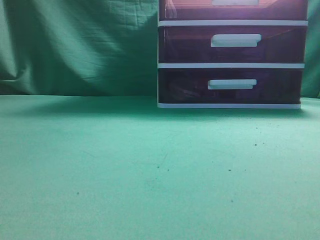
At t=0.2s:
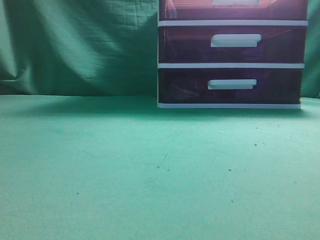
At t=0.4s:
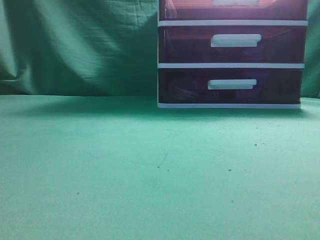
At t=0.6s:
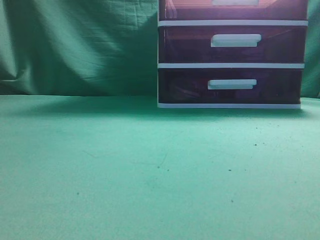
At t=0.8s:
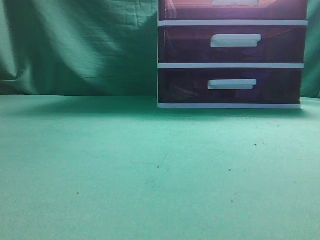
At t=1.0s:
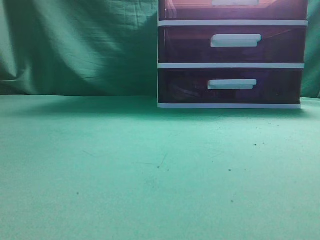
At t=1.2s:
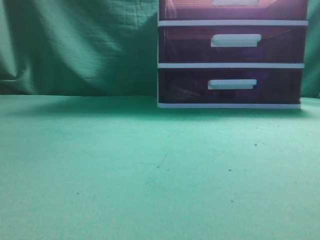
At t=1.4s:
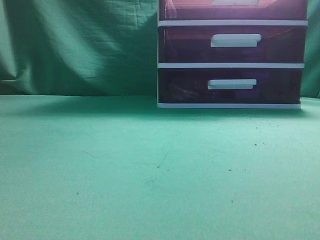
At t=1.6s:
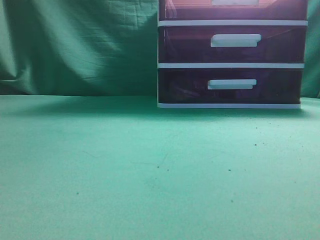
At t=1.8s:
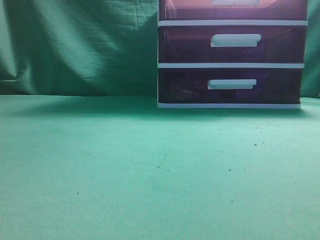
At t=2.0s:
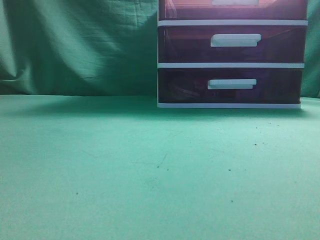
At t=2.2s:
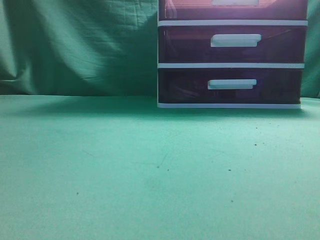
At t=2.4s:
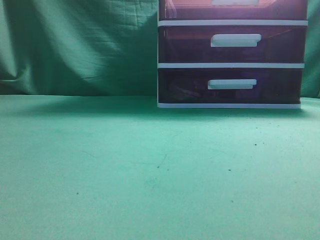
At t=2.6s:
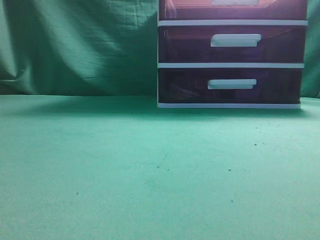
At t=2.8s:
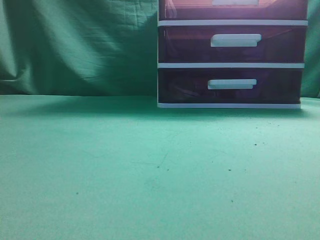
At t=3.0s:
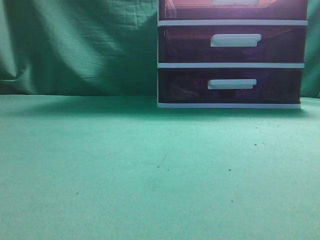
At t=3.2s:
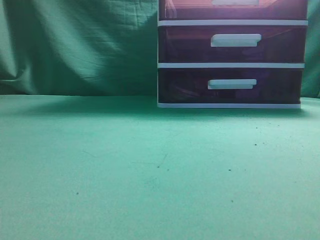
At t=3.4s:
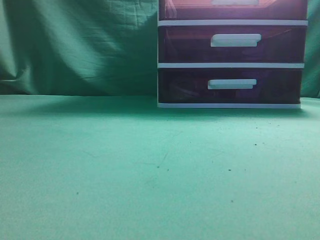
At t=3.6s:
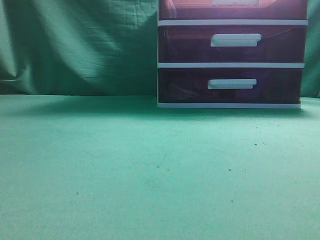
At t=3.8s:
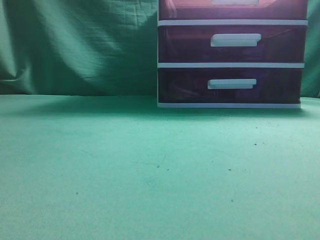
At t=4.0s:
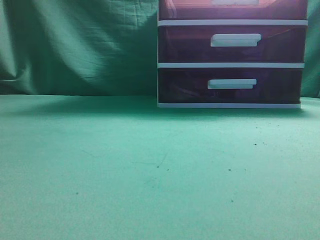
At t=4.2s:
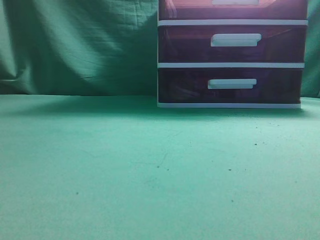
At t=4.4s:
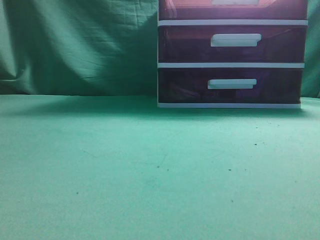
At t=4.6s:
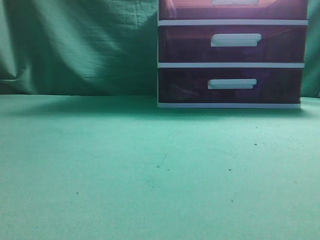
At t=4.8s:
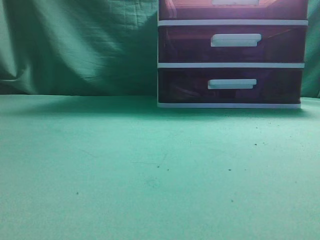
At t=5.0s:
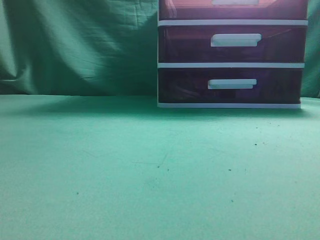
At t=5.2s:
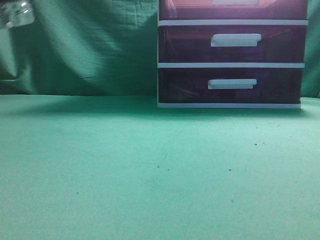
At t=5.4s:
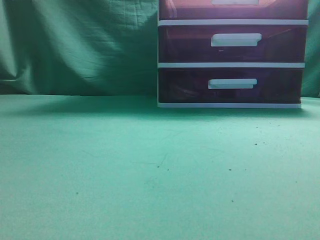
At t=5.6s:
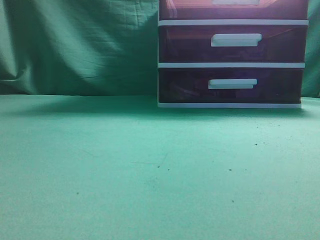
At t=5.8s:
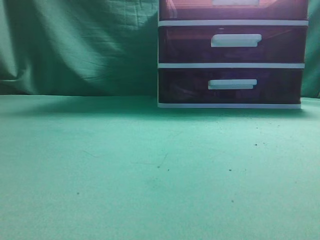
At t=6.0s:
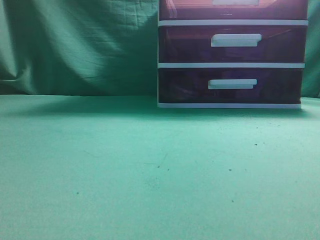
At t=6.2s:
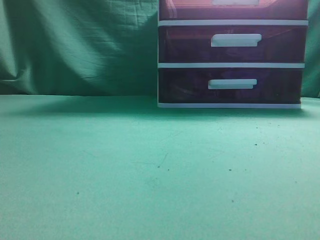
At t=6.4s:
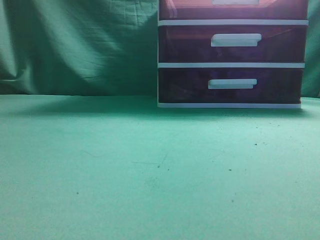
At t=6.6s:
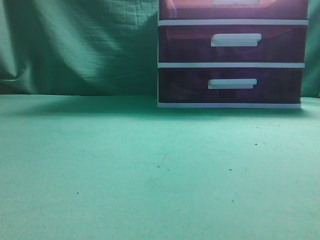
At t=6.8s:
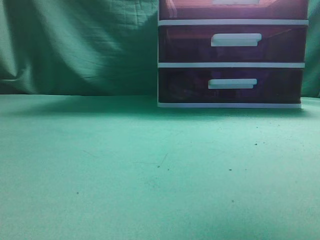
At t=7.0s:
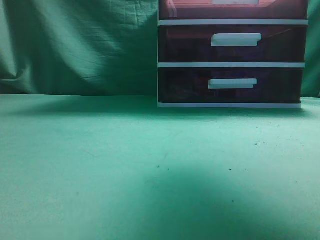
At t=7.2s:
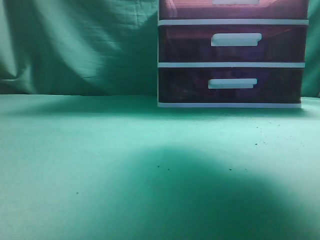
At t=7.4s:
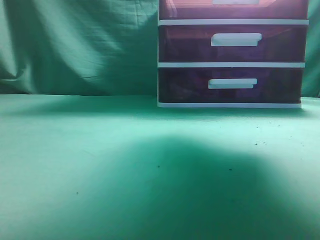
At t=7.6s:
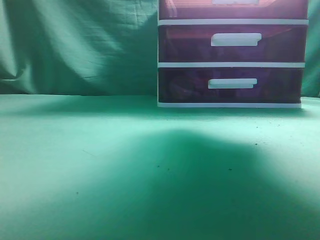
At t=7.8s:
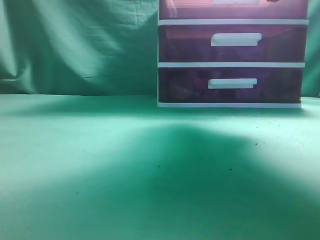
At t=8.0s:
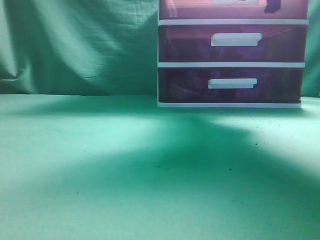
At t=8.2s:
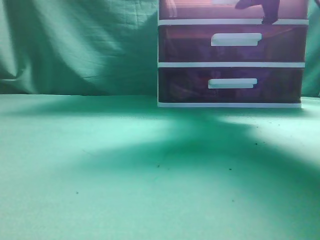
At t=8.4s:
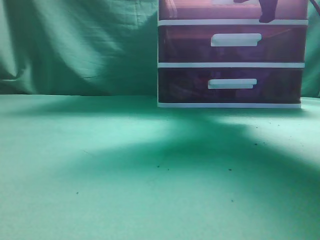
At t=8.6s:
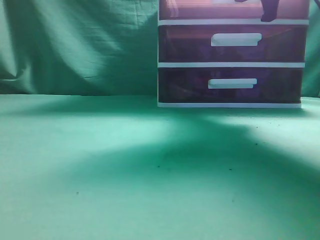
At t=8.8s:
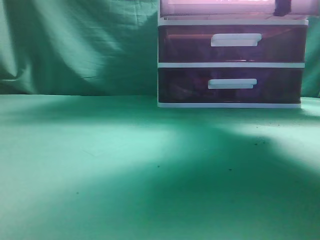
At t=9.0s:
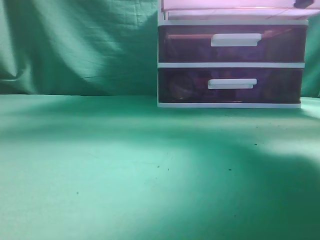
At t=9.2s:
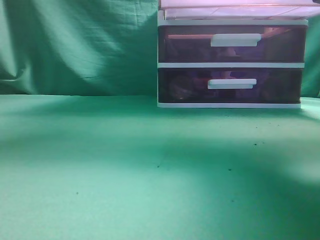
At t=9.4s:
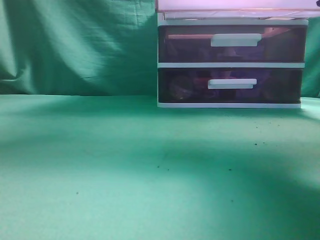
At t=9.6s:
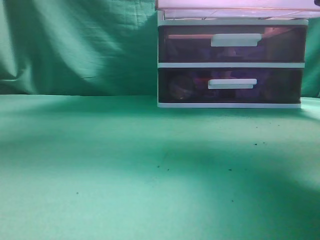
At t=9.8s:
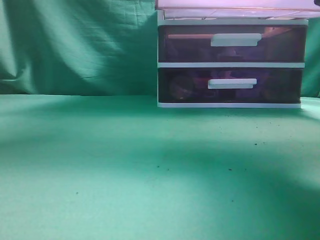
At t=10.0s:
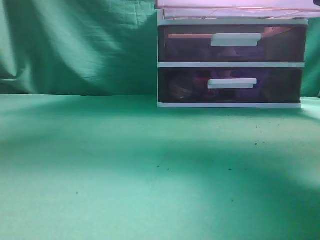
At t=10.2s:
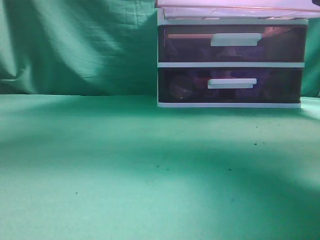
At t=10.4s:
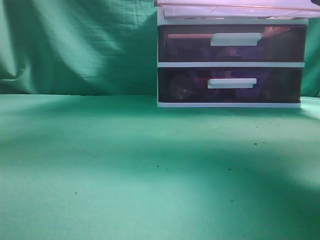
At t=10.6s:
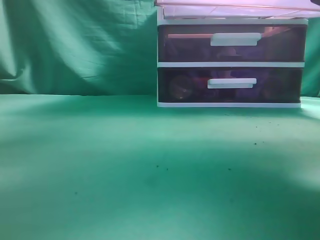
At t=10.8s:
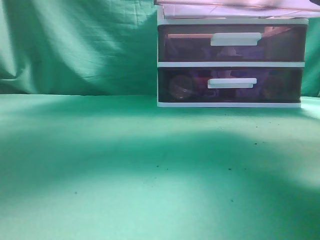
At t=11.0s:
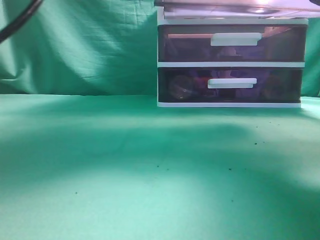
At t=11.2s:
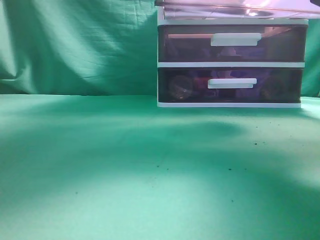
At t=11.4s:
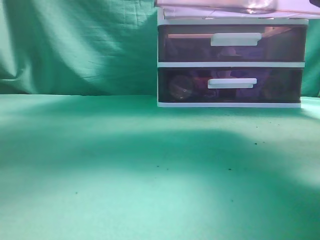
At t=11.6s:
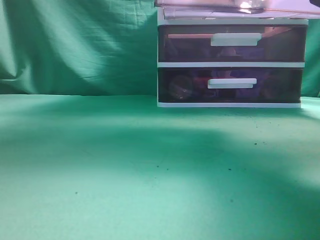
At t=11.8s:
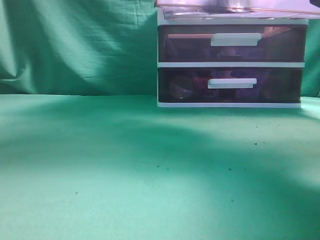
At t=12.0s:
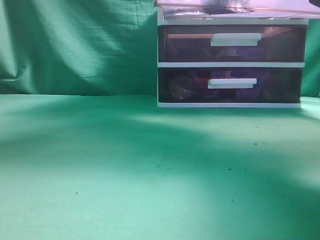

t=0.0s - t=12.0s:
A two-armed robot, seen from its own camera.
Task of the whole recording: place the water bottle into the drawer.
Step, t=0.0s - t=9.8s: Open the drawer.
t=6.0s - t=7.6s: The right gripper goes about 30 cm forward, and opens its fingers.
t=7.6s - t=9.0s: The right gripper closes up.
t=9.0s - t=10.4s: The right gripper moves backward, roughly 5 cm; the left gripper heads to the right, forward and upward, covering some 30 cm.
t=10.4s - t=12.0s: The left gripper goes some 10 cm forward, moves approximately 10 cm downward and comes back, and opens and closes again.

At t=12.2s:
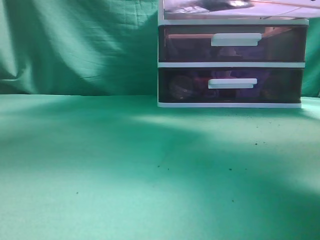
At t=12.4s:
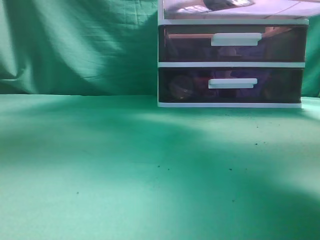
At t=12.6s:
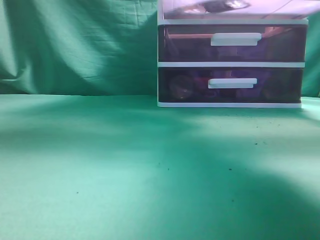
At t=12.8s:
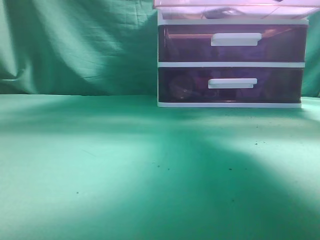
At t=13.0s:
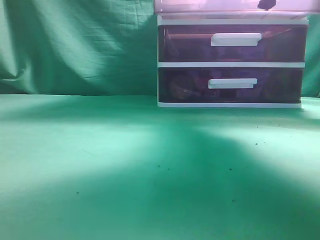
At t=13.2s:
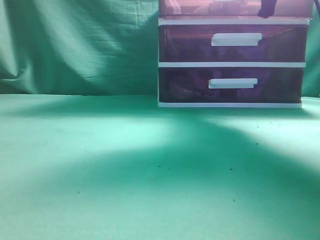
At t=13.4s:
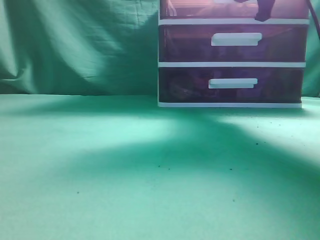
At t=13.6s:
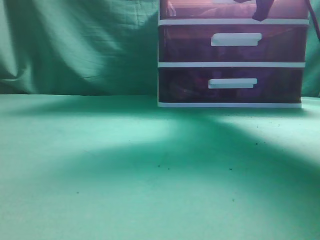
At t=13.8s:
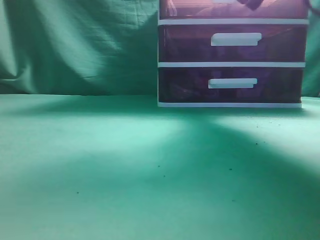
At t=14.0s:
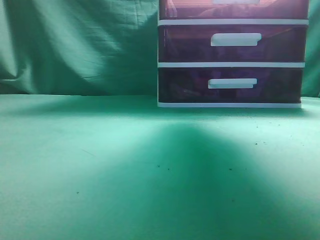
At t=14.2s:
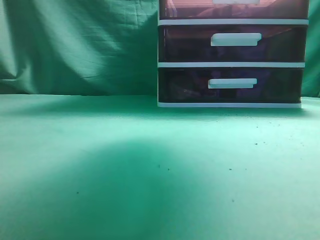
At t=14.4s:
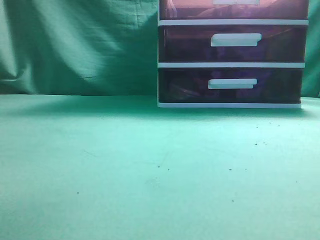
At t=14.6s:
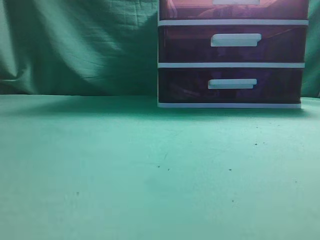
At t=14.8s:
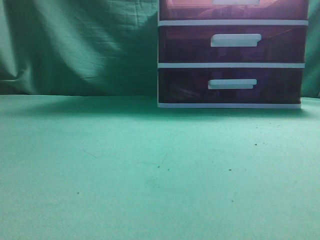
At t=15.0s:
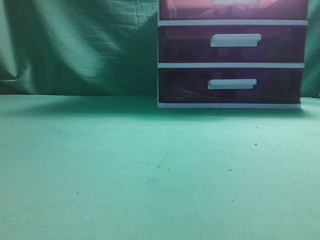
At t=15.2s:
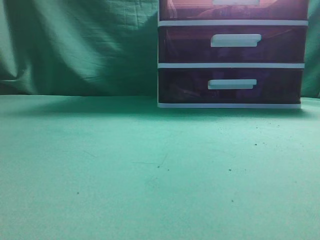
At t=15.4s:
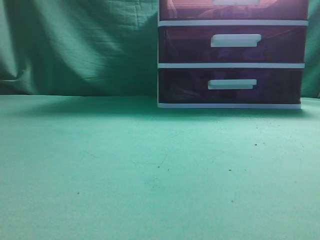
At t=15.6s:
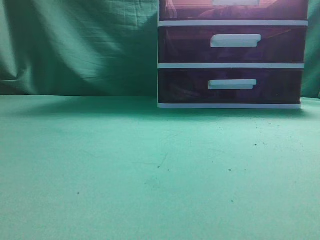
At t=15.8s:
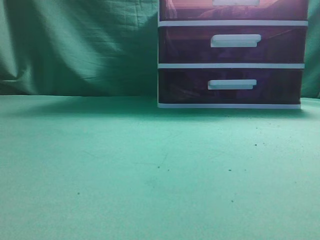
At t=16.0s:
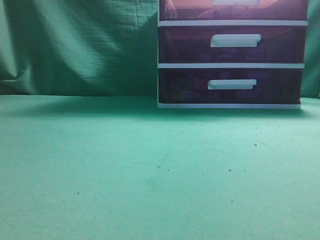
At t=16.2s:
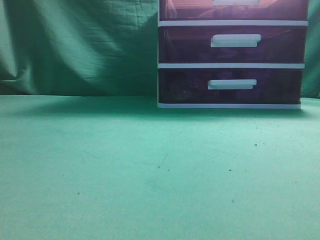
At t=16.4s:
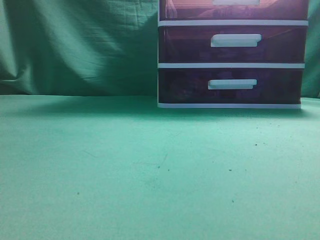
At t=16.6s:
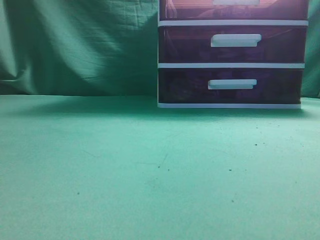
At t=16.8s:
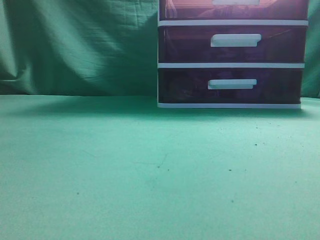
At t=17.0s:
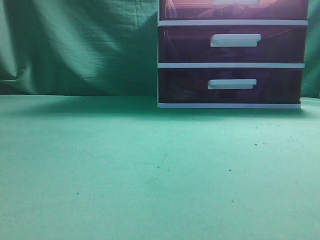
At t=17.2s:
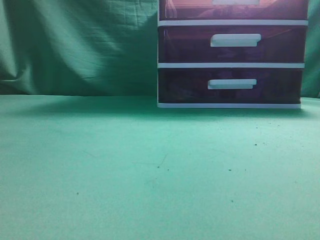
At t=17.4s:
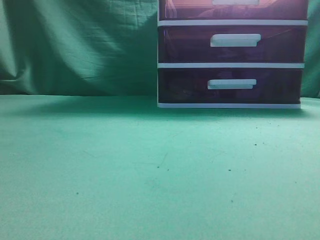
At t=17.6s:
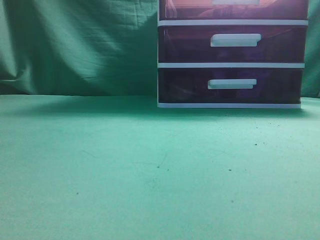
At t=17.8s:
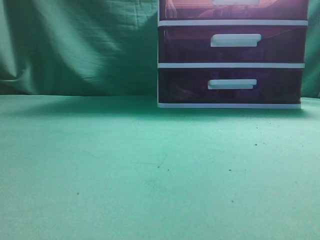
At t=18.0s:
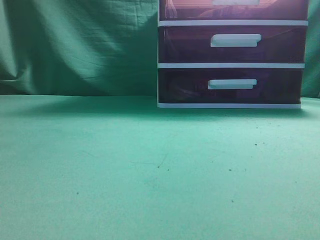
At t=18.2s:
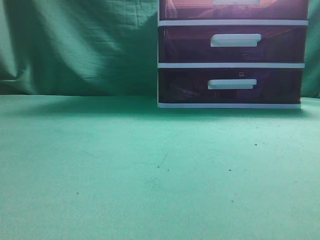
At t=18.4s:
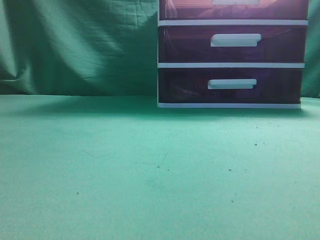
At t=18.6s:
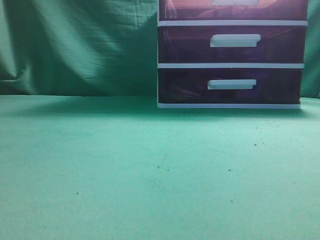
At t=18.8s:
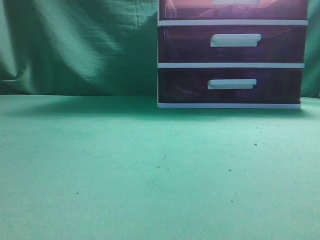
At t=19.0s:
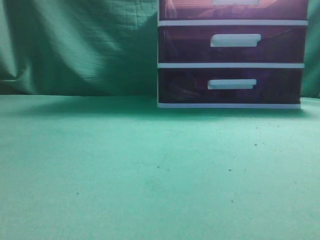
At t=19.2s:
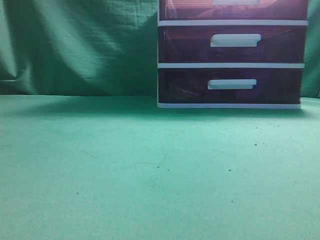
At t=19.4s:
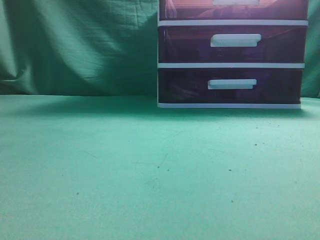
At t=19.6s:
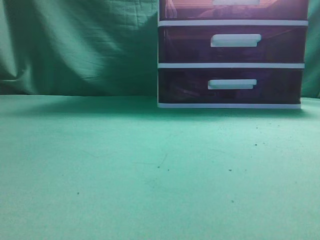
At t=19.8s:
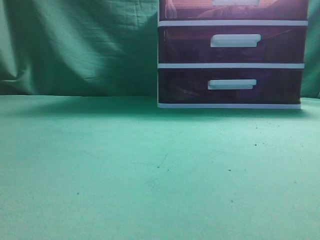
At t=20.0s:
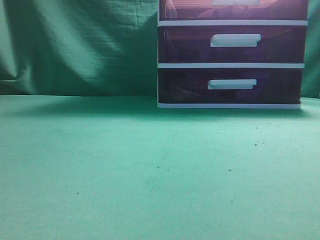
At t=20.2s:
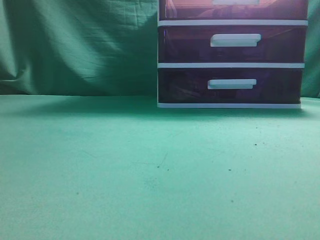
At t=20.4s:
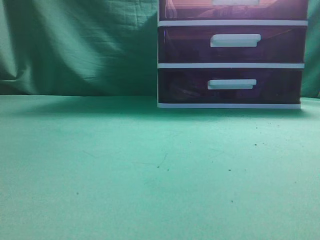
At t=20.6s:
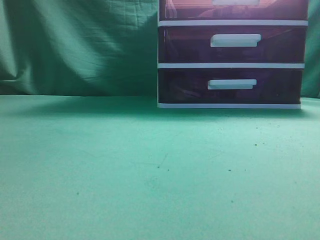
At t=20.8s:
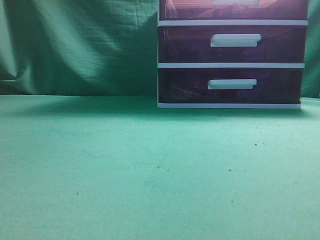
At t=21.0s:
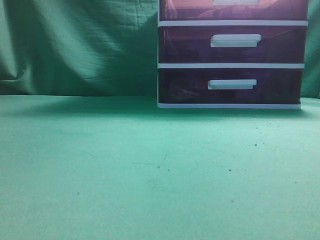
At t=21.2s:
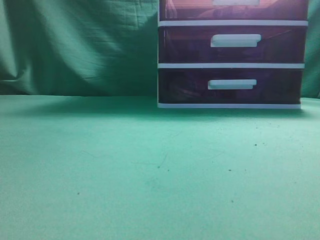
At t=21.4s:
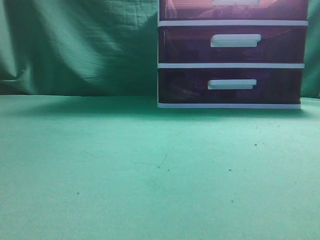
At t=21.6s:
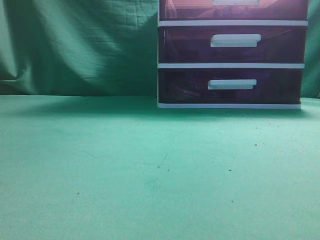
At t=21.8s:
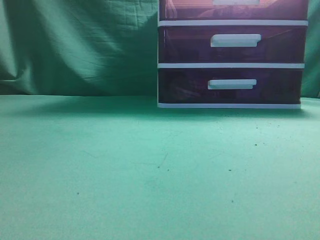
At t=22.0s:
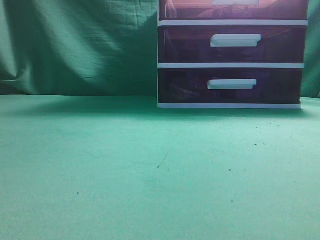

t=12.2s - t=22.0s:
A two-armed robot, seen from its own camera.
Task of the whole recording: place the water bottle into the drawer.
Step, t=12.4s - t=14.2s: Close the drawer.
t=12.2s - t=13.6s: The left gripper shifts about 10 cm downward and to the left, while the right gripper heads forward, covering some 15 cm.
t=13.6s - t=15.0s: The right gripper is displaced backward and upward by some 35 cm, and opens and closes again, while the left gripper is displaced backward by roughly 25 cm.
